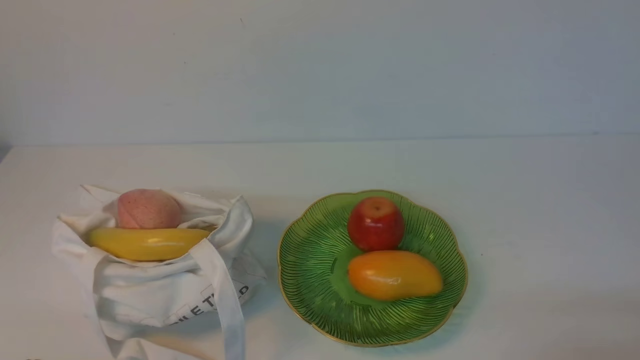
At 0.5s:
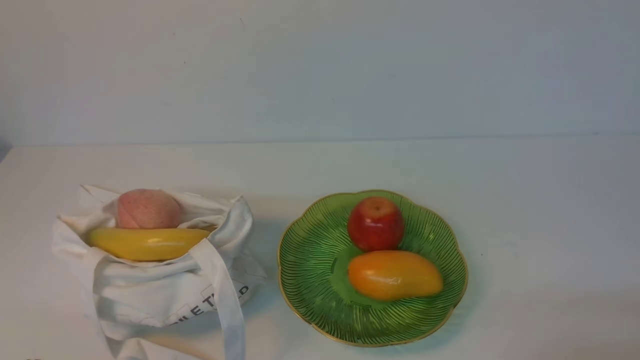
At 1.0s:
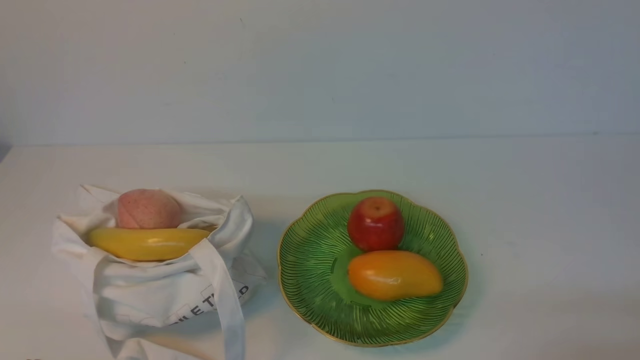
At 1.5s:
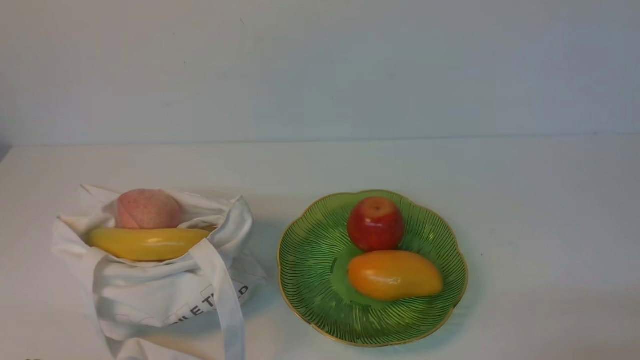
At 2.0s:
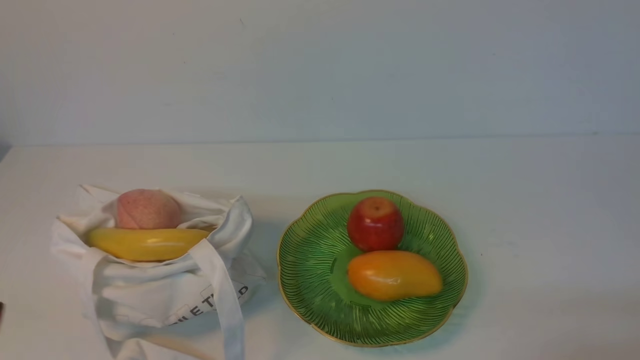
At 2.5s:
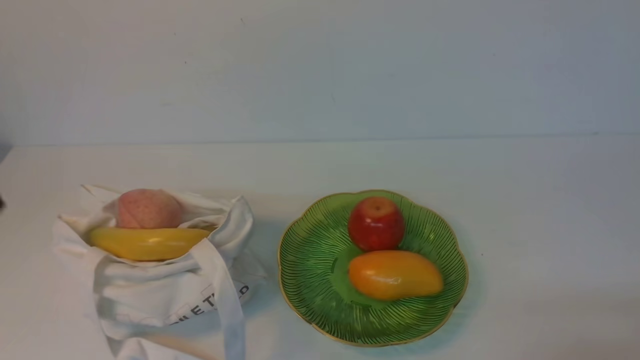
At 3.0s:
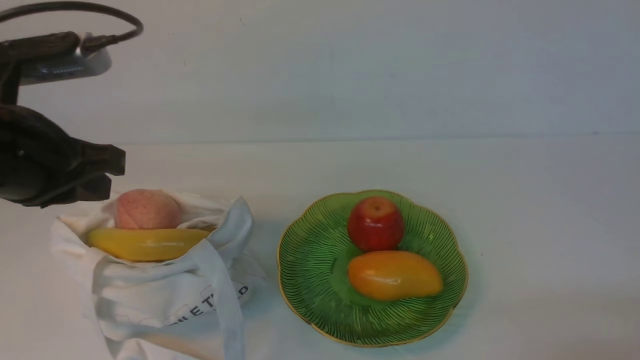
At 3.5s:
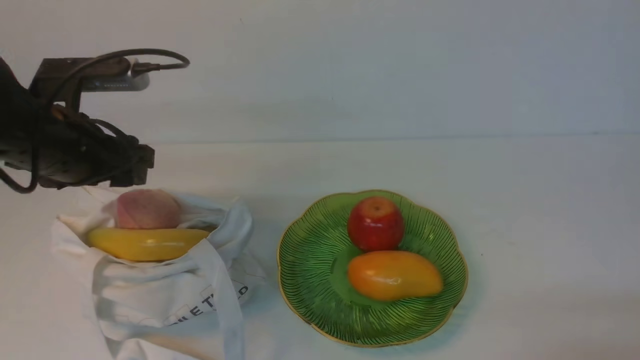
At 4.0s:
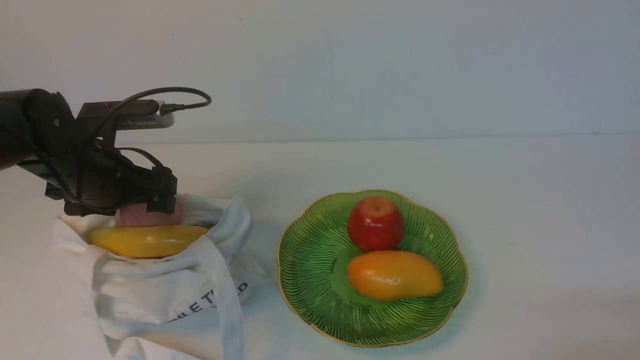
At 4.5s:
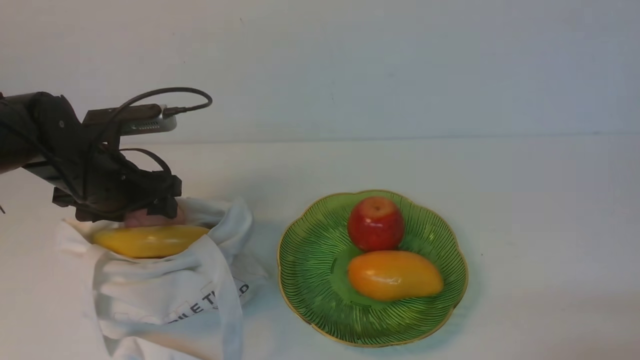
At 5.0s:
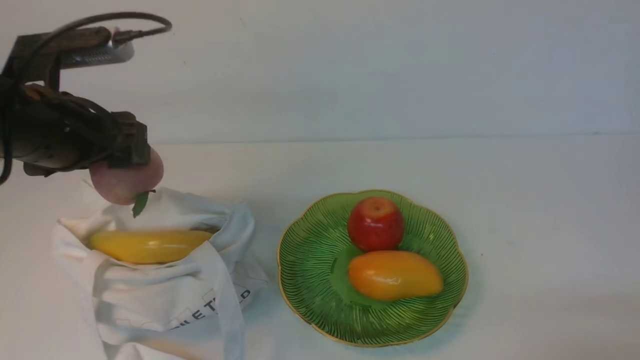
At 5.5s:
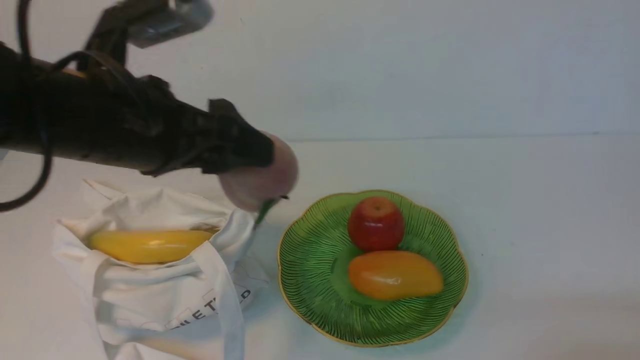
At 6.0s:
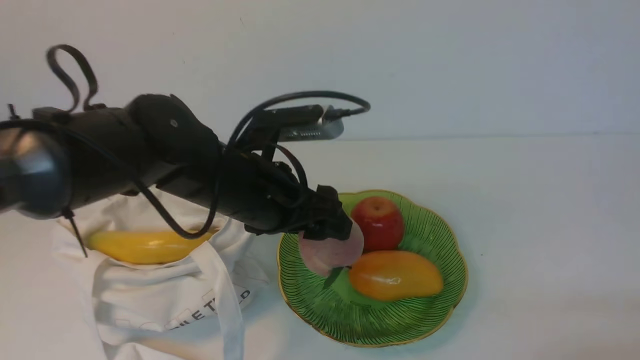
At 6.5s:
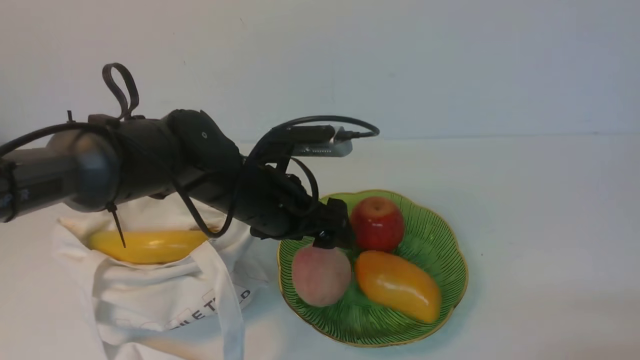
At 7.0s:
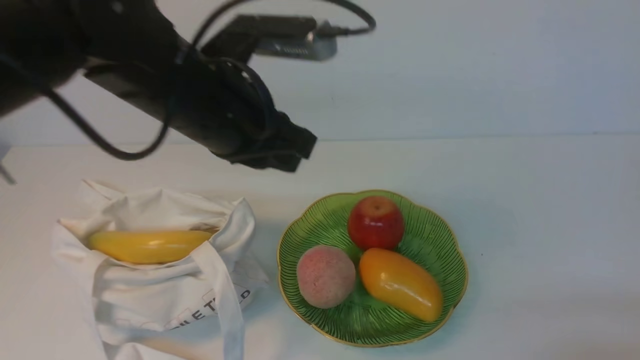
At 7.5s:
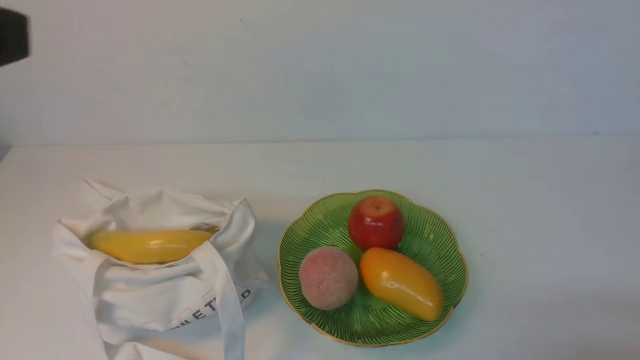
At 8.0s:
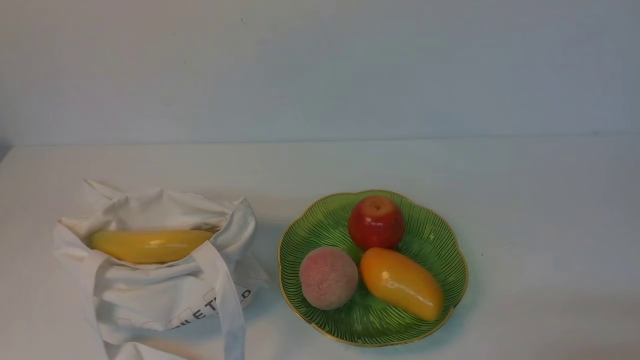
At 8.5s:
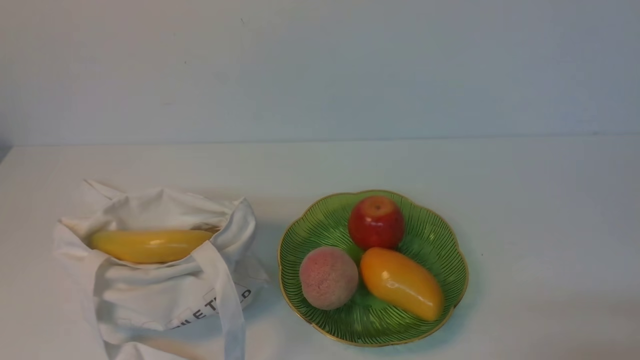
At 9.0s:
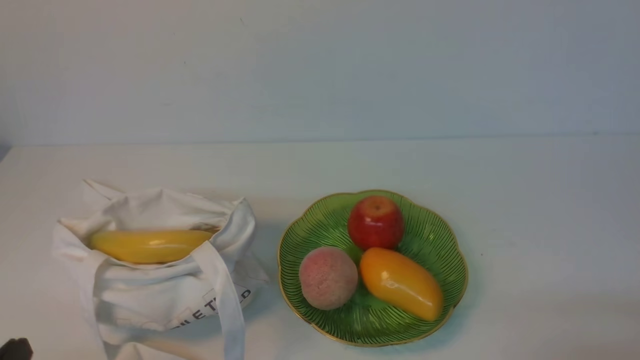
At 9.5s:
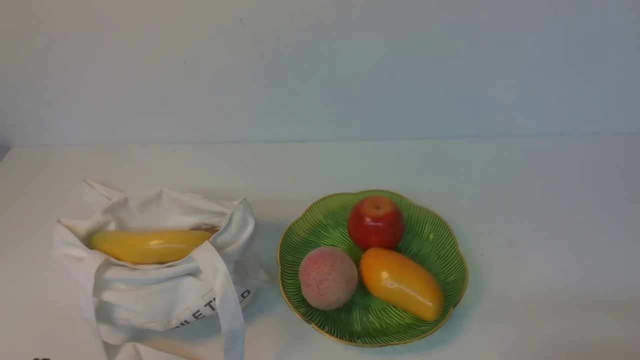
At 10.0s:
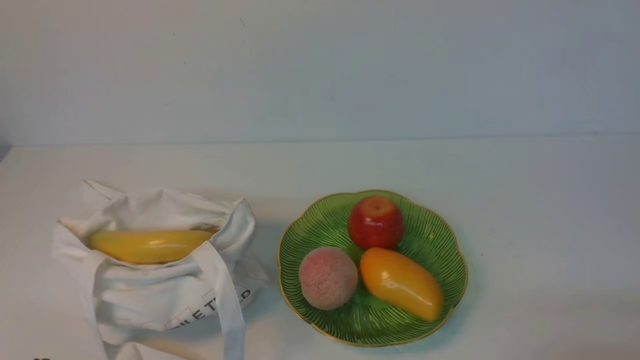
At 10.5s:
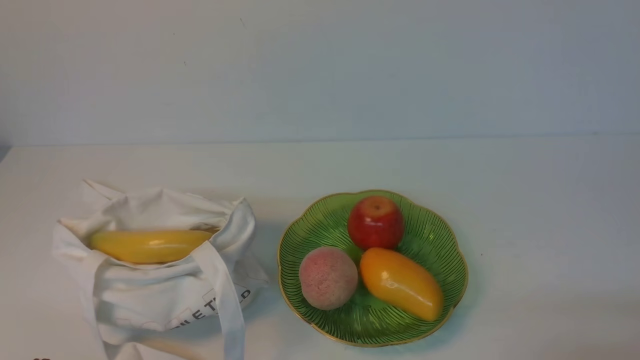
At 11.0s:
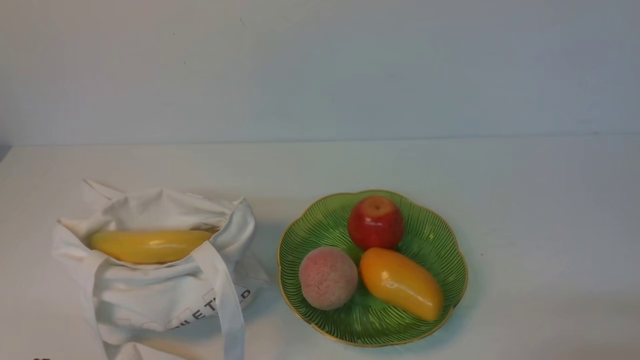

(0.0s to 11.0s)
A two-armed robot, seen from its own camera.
Step, 0.0s - 4.5s: use the left arm to grab a peach from the bag.
Step, 5.0s - 6.0s: use the left arm to put the peach into the empty plate on the right.
2.0s - 3.5s: The left gripper moves forward, approximately 25 cm, and opens.
3.5s - 5.5s: The left gripper travels to the right and upward by some 10 cm.
5.5s - 7.5s: The left gripper moves upward and backward, approximately 15 cm, and closes its fingers.
7.5s - 9.0s: The left gripper heads downward, covering some 25 cm.
